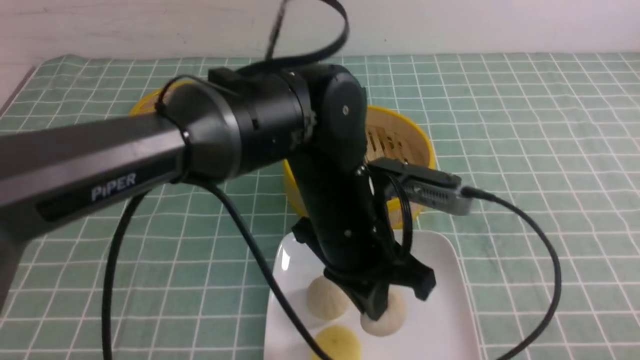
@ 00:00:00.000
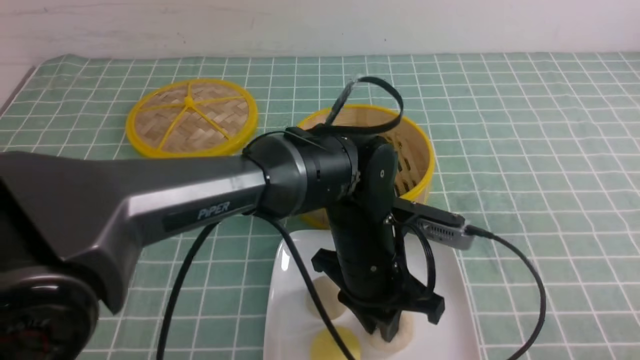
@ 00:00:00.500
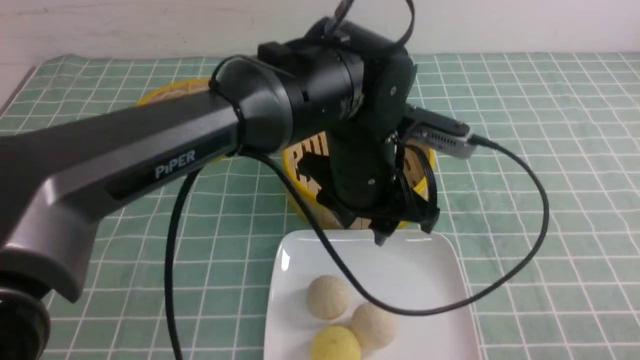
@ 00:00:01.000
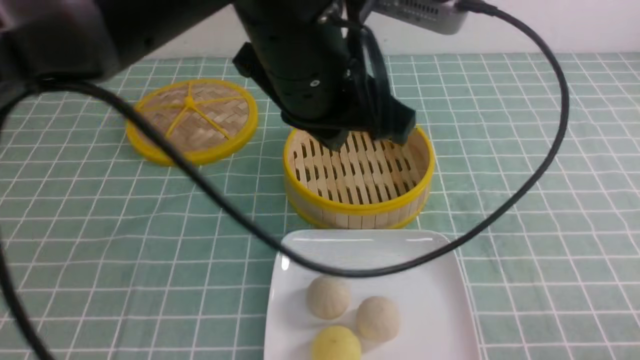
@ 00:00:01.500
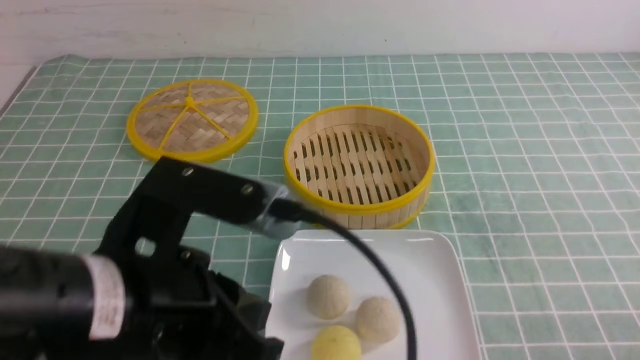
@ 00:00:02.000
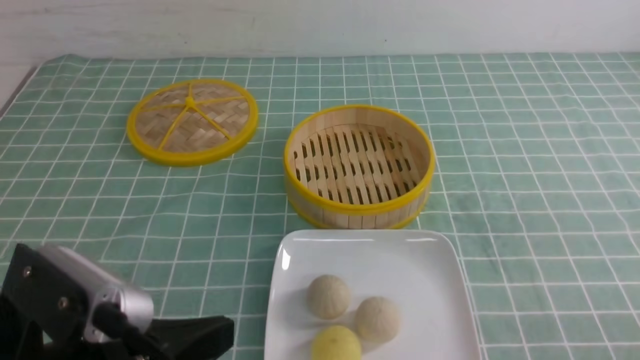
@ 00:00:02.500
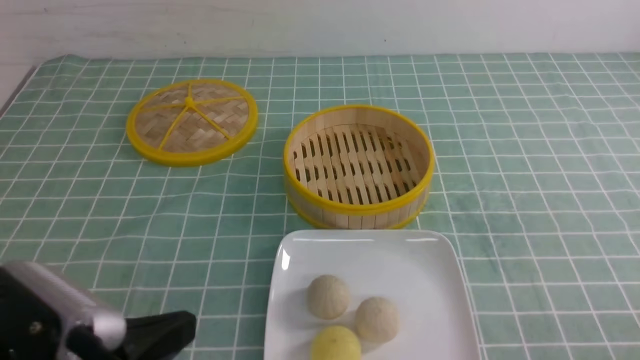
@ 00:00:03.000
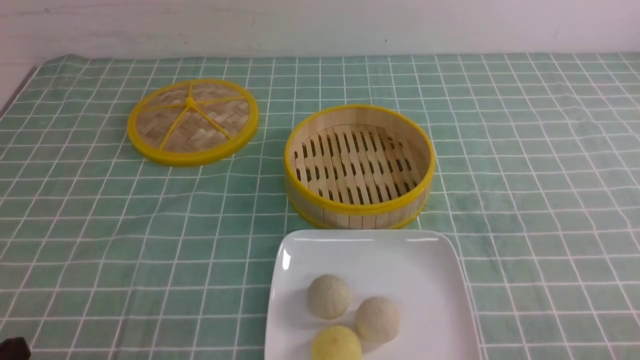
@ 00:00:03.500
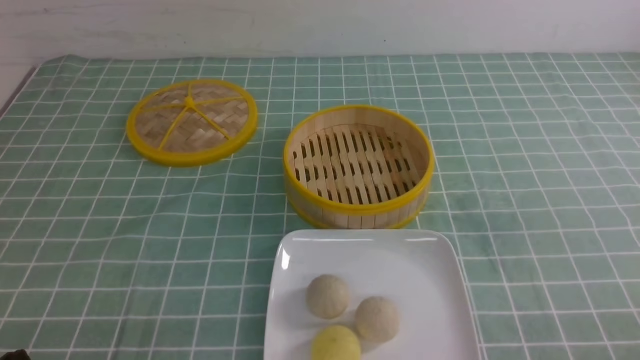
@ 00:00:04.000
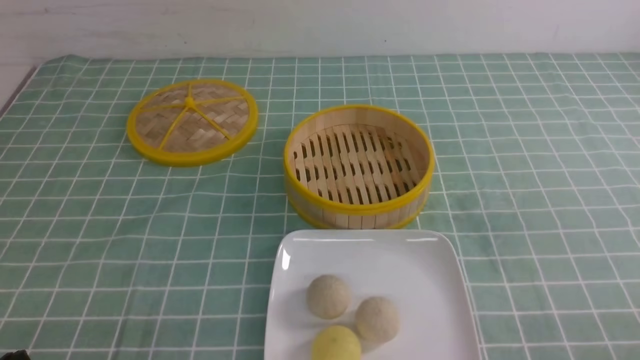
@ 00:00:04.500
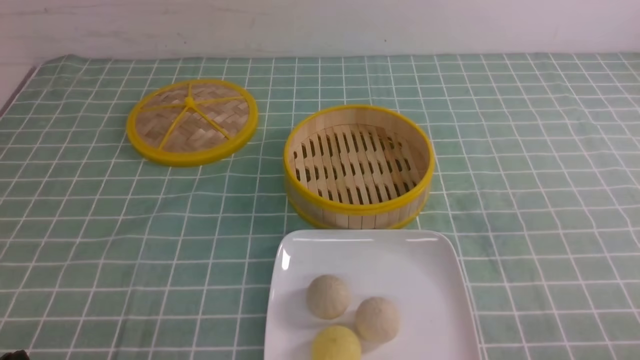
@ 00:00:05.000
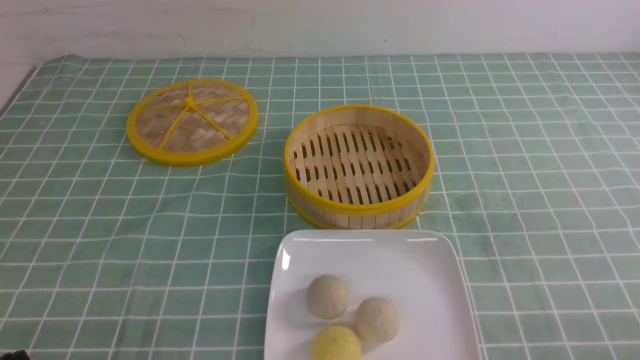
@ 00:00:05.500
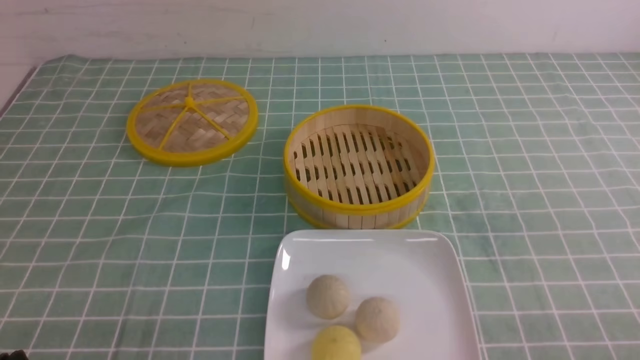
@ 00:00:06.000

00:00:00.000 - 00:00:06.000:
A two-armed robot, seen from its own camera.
00:00:00.000 - 00:00:02.000: The left gripper moves up and down over roughly 20 cm, changing direction 2 times, and opens, then closes once more.
00:00:02.000 - 00:00:04.000: The left gripper is displaced to the left, downward and backward by approximately 20 cm.
00:00:04.000 - 00:00:06.000: Both grippers stay put.

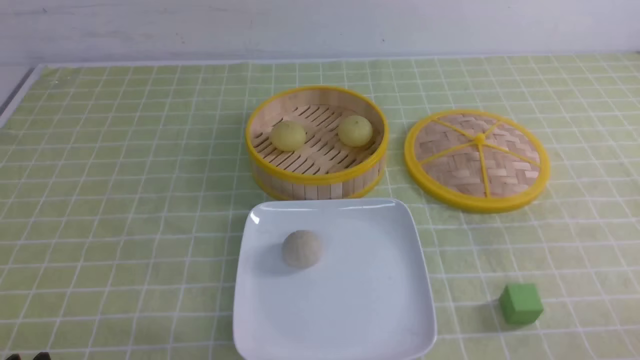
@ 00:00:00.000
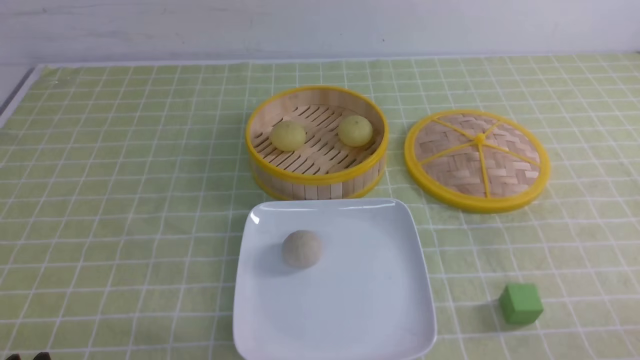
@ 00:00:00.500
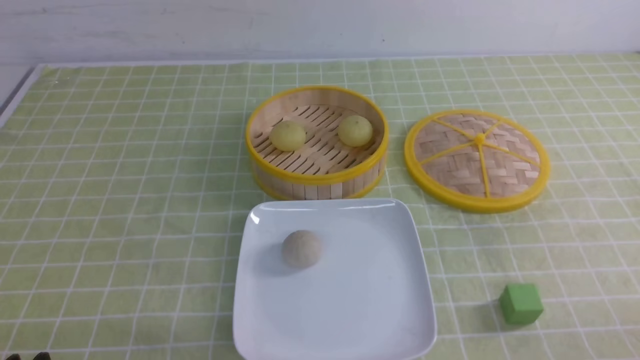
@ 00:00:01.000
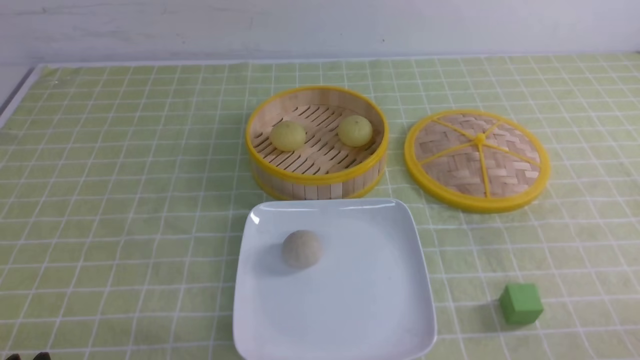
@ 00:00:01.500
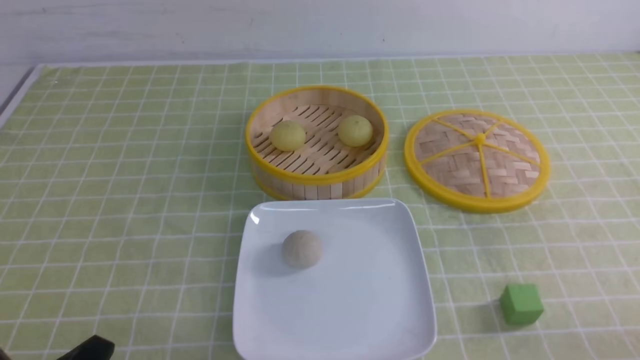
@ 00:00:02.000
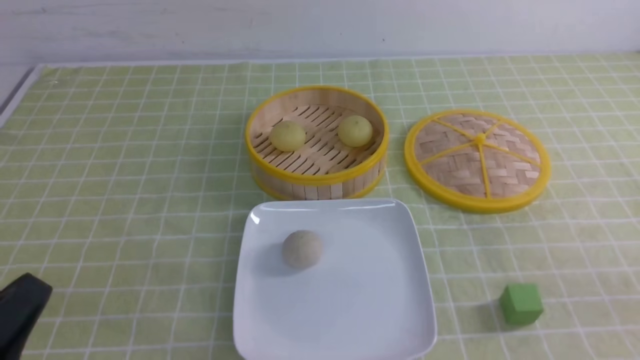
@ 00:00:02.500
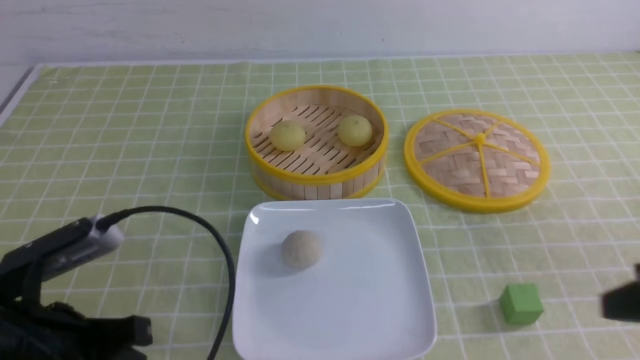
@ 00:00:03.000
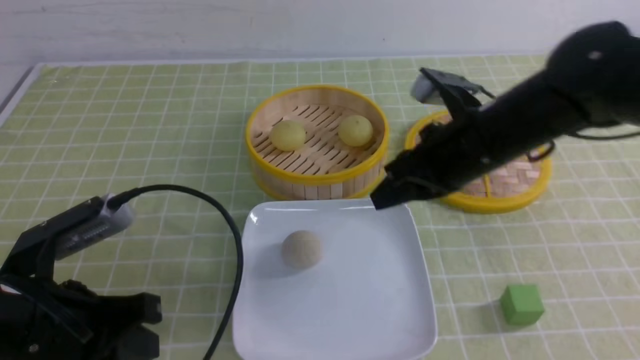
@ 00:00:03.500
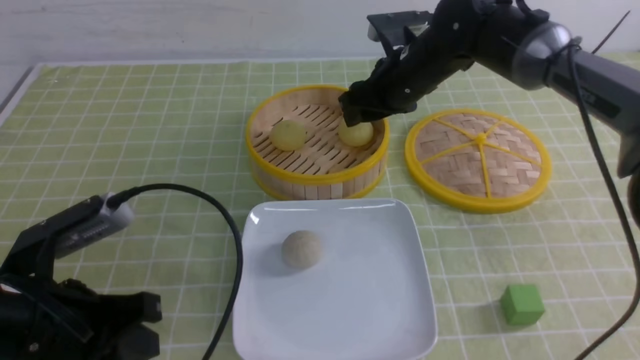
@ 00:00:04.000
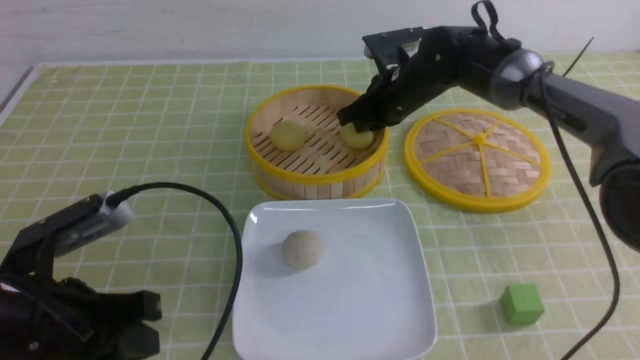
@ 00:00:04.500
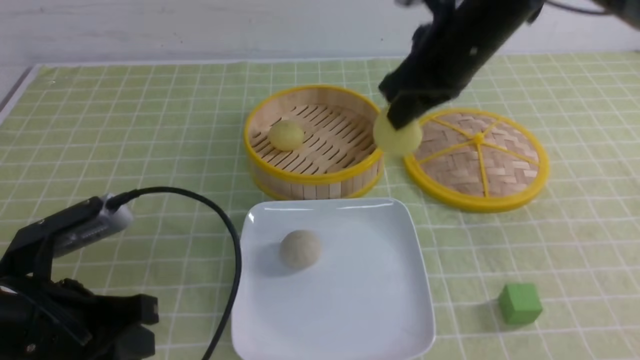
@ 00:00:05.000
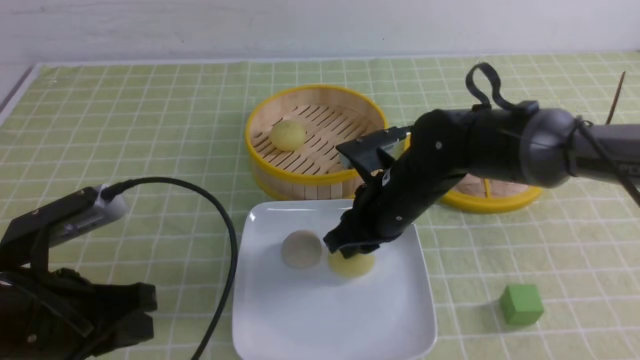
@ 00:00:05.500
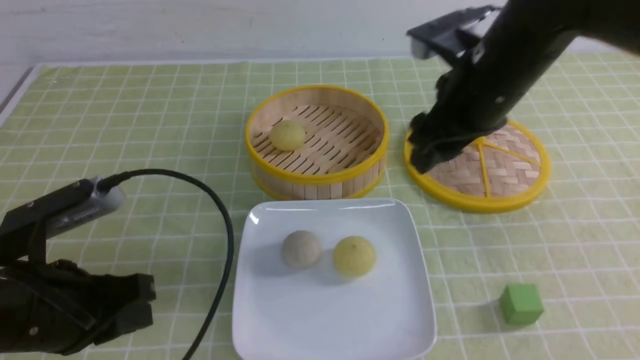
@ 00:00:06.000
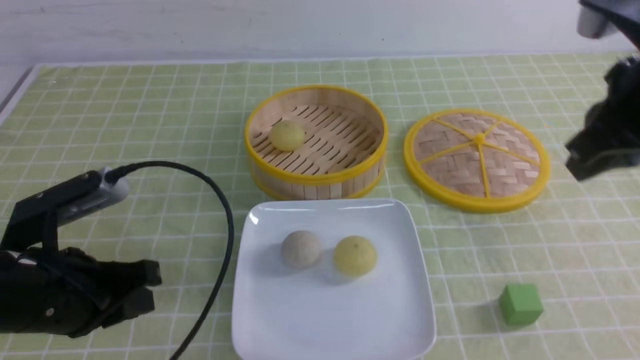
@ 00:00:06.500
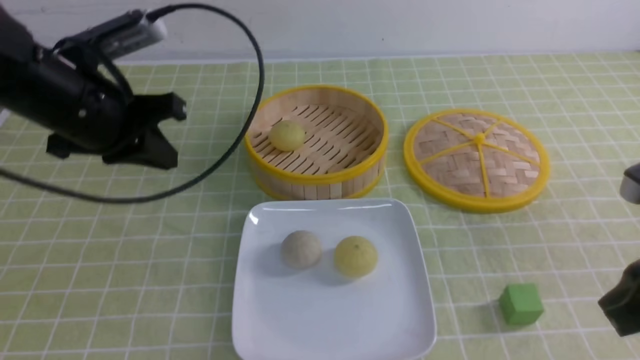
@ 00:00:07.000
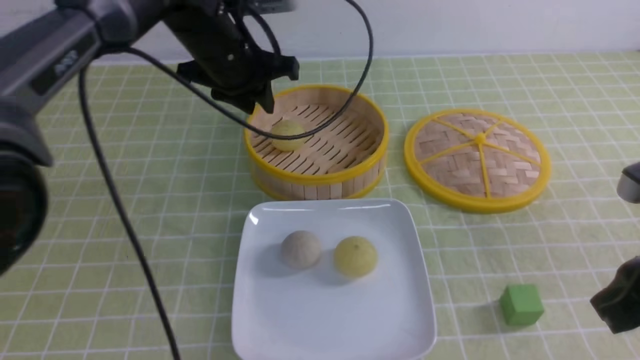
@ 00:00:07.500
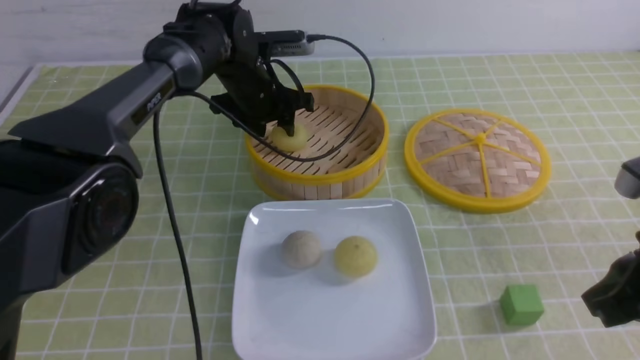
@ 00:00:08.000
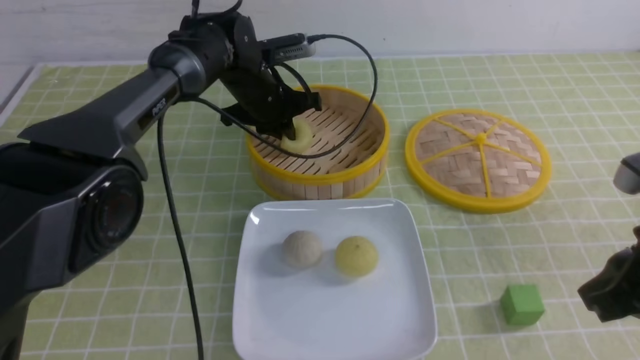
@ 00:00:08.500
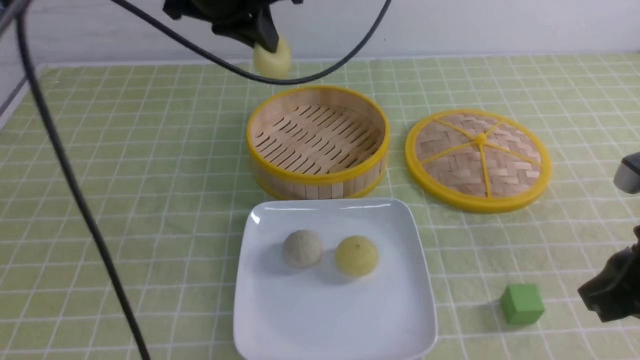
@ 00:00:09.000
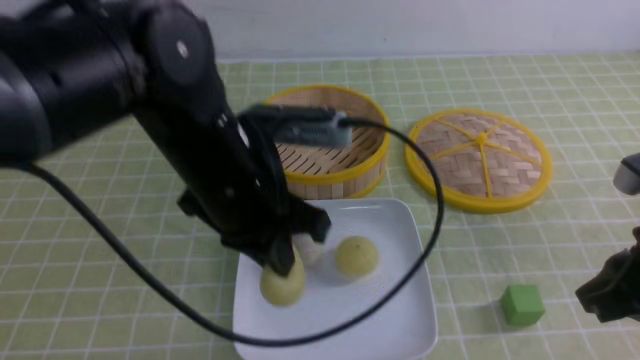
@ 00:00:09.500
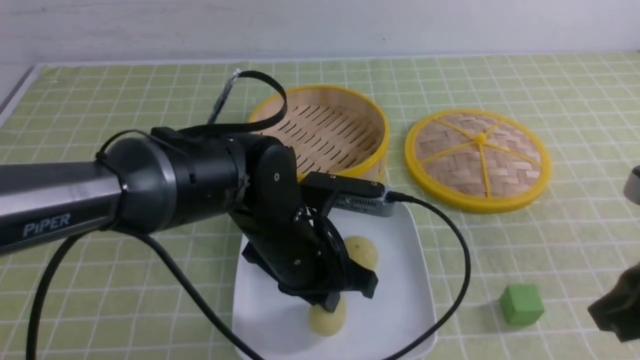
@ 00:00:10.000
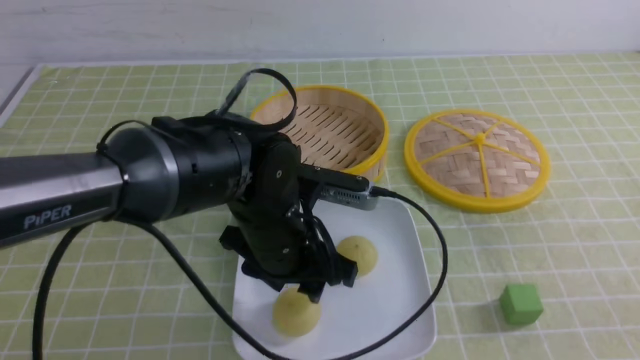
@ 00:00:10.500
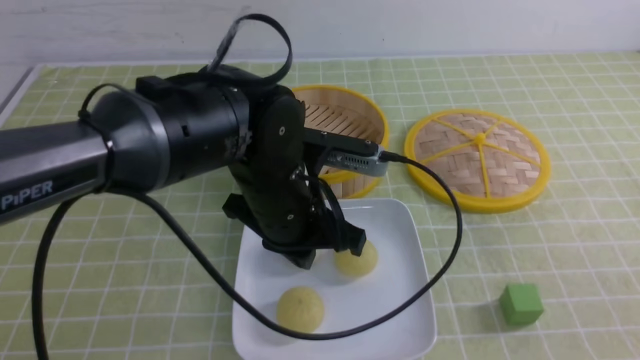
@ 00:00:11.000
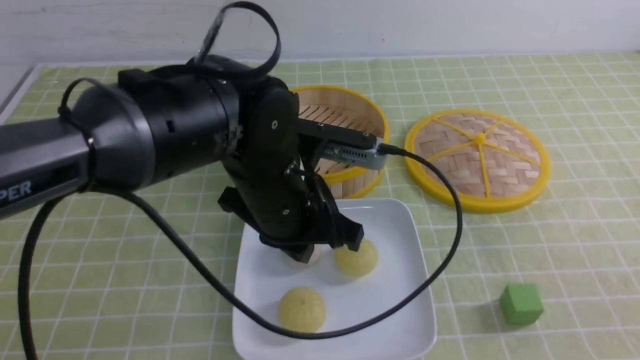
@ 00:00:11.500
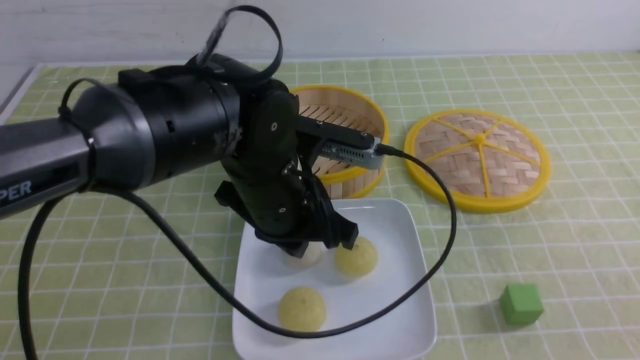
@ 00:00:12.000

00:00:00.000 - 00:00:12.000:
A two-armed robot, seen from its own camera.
Step, 00:00:00.000 - 00:00:04.000: use the right arm to grab the steamed stuffed bun that is closest to it.
Step, 00:00:04.500 - 00:00:05.500: use the right arm to put the steamed stuffed bun into the plate.
Step, 00:00:06.000 - 00:00:08.500: use the left arm to grab the steamed stuffed bun that is closest to it.
Step, 00:00:09.000 - 00:00:10.000: use the left arm to put the steamed stuffed bun into the plate.
00:00:02.000 - 00:00:04.000: The right gripper heads forward and to the left, covering approximately 50 cm, and opens up, while the left gripper heads forward and upward, covering about 10 cm, and closes its fingers.
00:00:04.000 - 00:00:06.000: The right gripper travels backward and upward by some 15 cm, and closes, then opens again.
00:00:06.000 - 00:00:08.000: The right gripper travels backward and to the right by roughly 20 cm, and closes, while the left gripper moves forward and to the right, approximately 35 cm, and opens.
00:00:08.000 - 00:00:10.000: The left gripper heads backward, covering about 25 cm, and closes up.
00:00:10.000 - 00:00:12.000: The left gripper shifts by about 5 cm, and opens, then closes once more; the right gripper moves backward, roughly 10 cm.

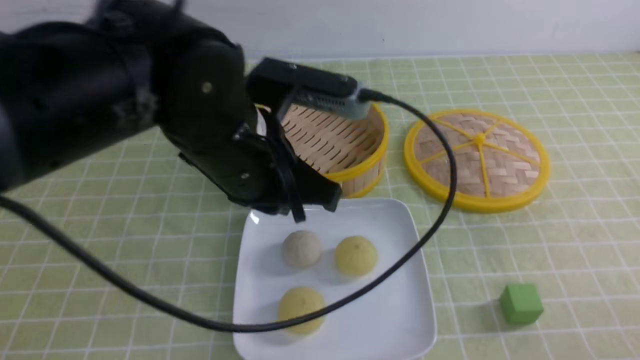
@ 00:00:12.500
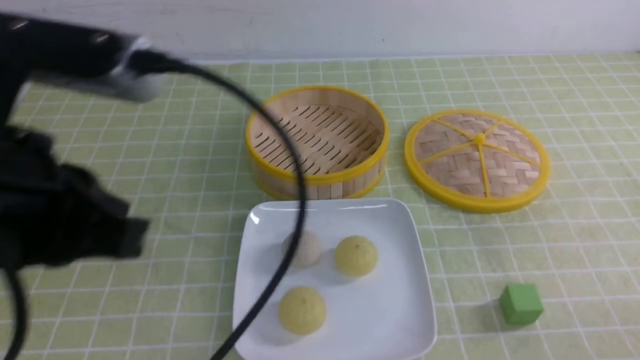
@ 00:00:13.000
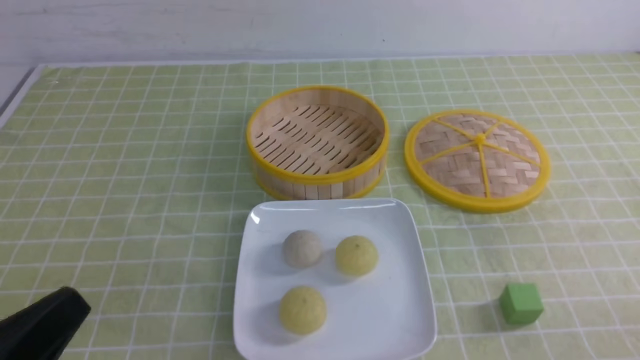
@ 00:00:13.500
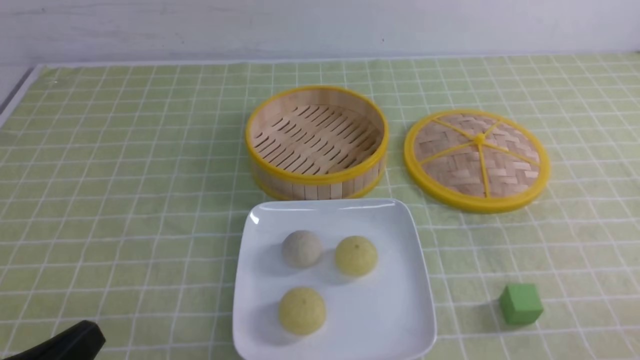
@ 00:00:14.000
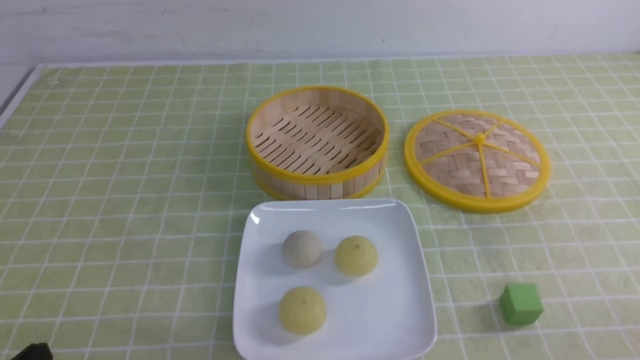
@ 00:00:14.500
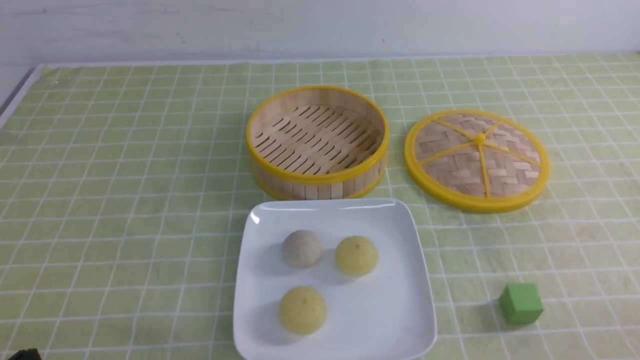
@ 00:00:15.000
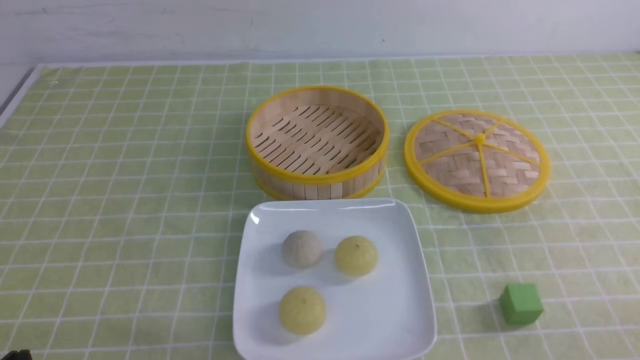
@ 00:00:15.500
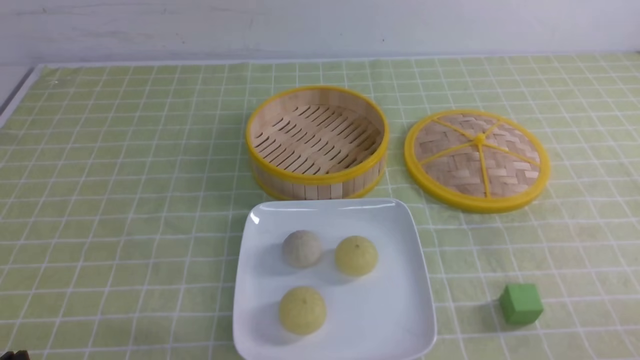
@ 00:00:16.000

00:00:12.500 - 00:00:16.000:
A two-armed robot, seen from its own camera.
00:00:12.500 - 00:00:14.500: The left gripper heads backward, to the left and downward, covering roughly 30 cm.
